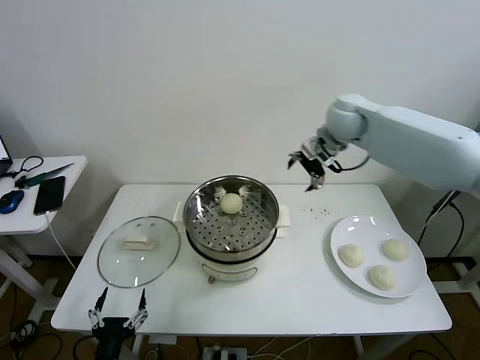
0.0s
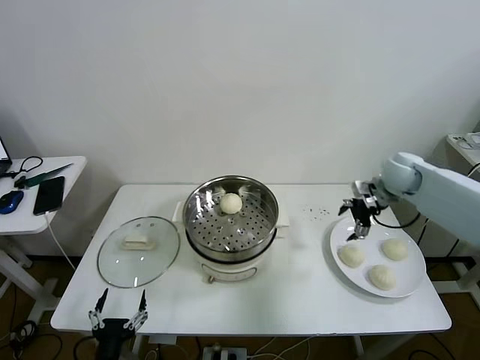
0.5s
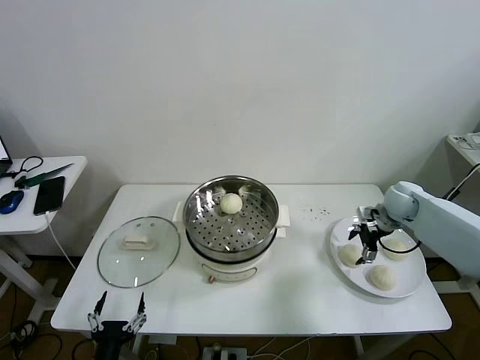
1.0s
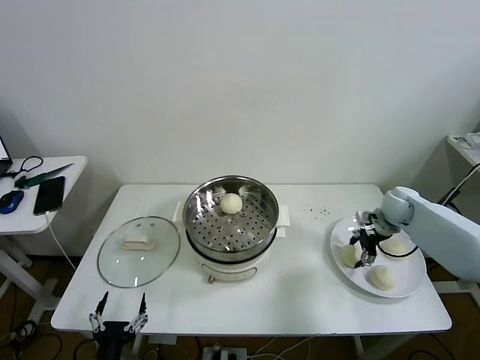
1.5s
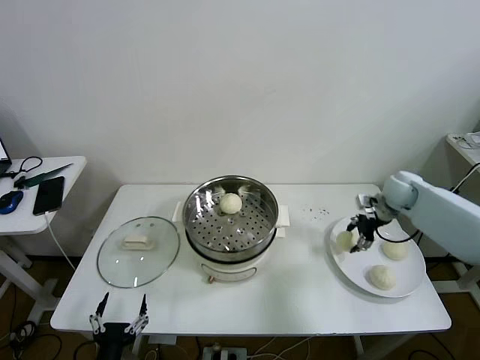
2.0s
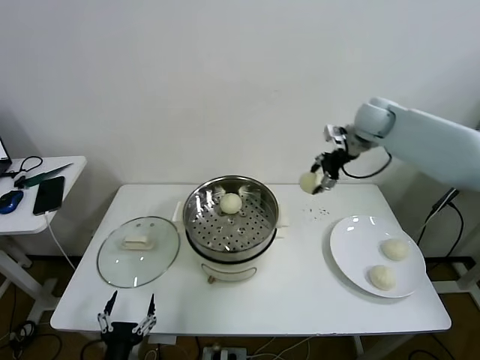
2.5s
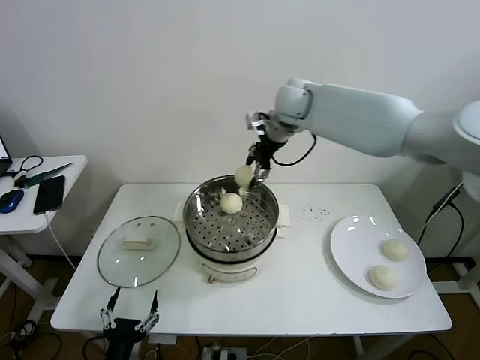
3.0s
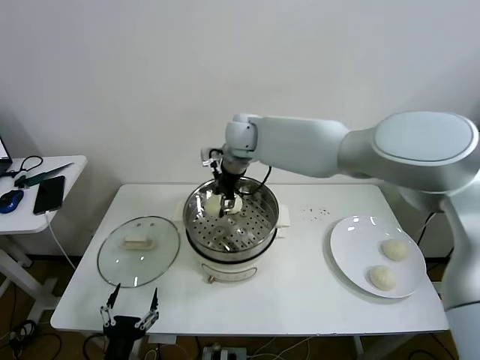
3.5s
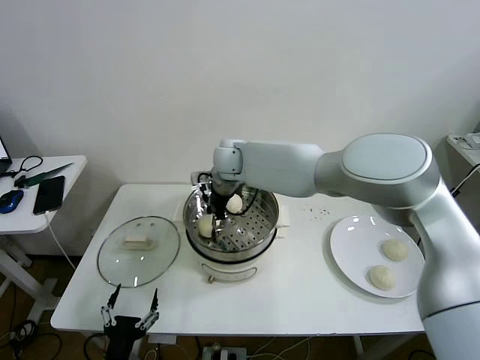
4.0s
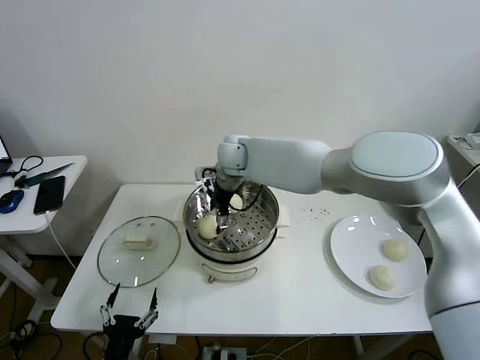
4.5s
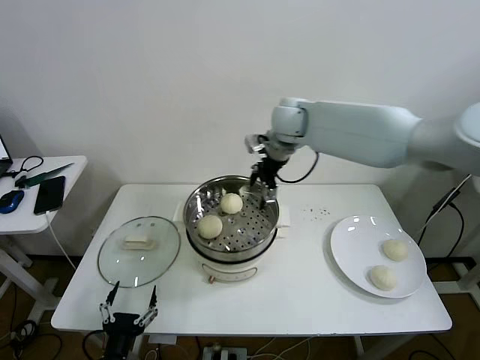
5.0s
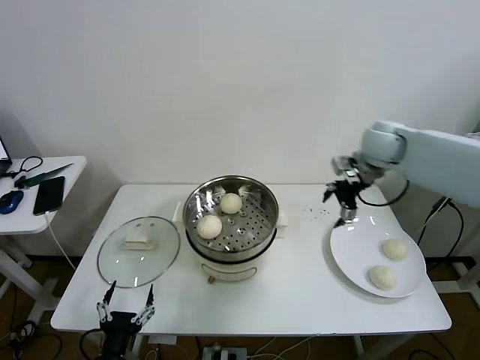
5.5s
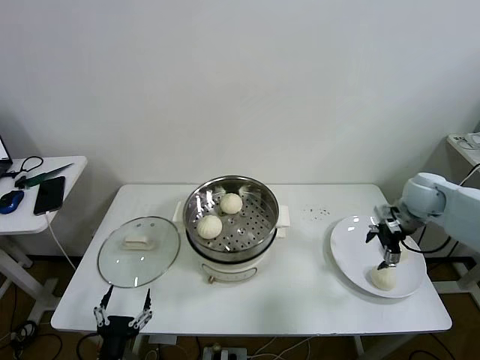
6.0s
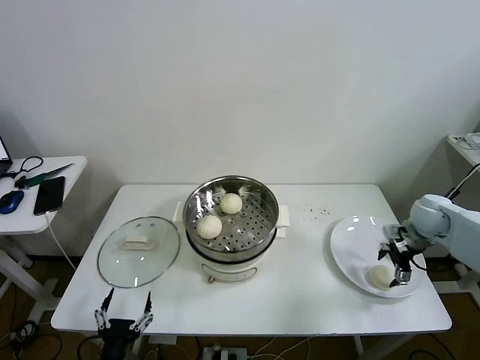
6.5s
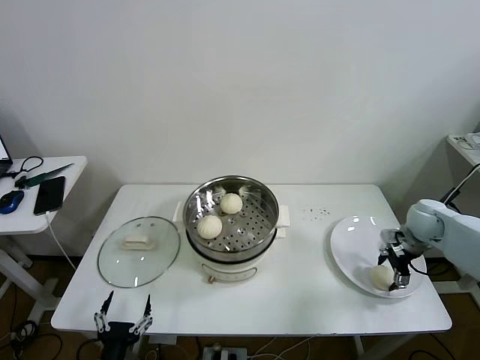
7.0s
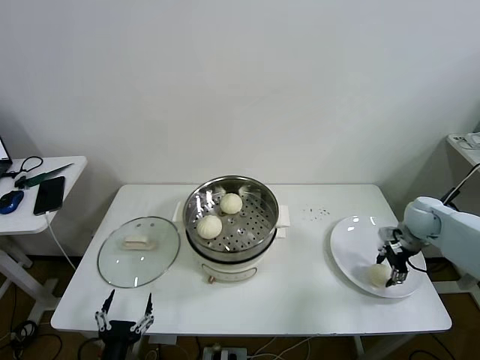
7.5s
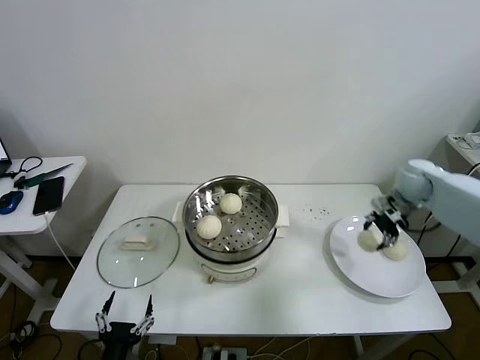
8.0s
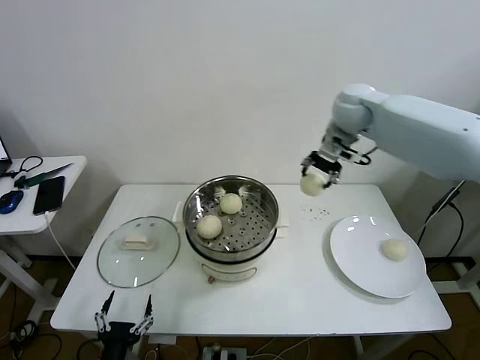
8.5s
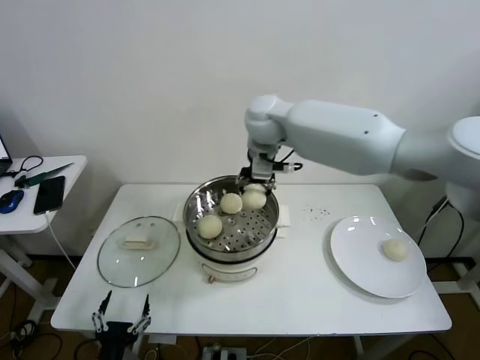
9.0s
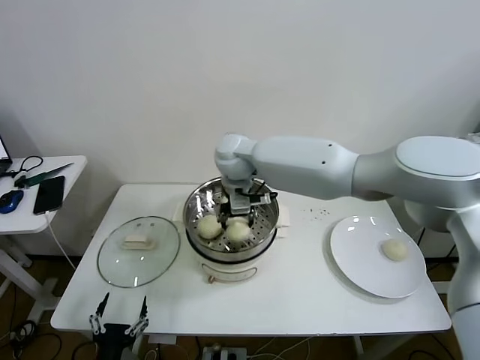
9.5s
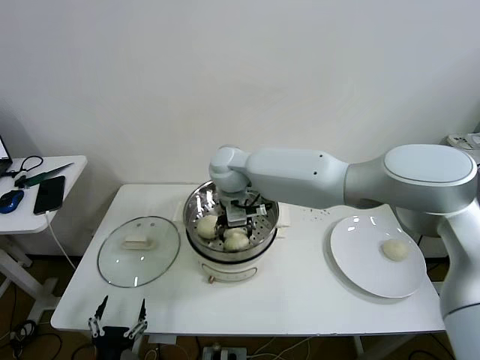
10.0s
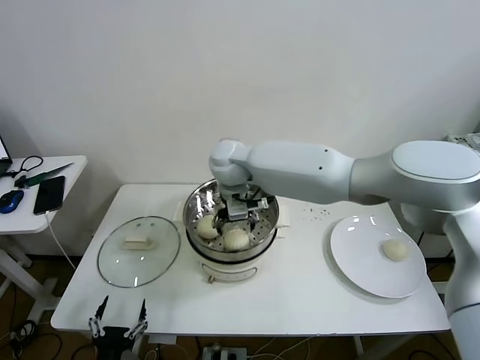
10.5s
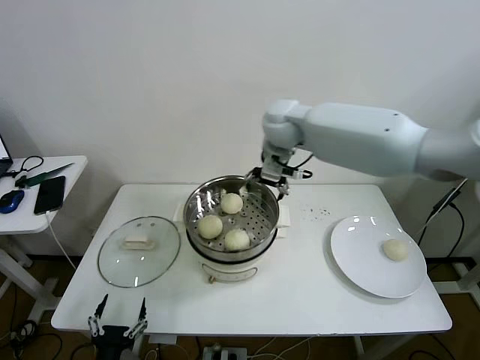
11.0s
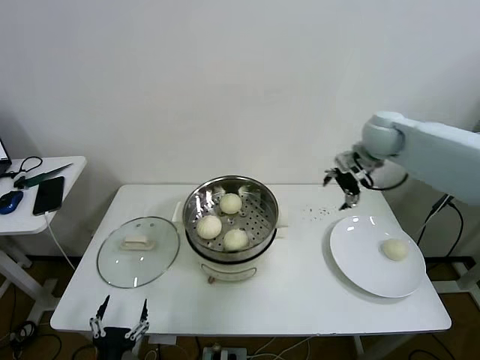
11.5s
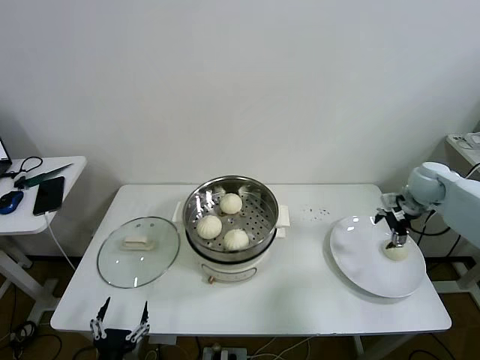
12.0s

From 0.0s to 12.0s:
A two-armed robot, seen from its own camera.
Task of the whole recording: take steamed baozi put them in steamer then cover it.
Step, from 0.0s to 1.5s: Grasp the baozi in the plate with right gripper.
Step, from 2.0s to 4.5s: Place the baozi on the steamer with right gripper.
Step, from 5.0s to 7.5s: Grasp the baozi in the plate with right gripper.
Step, from 8.0s to 10.5s: Place the baozi on the steamer with right gripper.
From 0.0s to 2.0s: The right gripper heads downward and to the right, covering roughly 20 cm, and closes up.
From 2.0s to 4.0s: The right gripper is displaced to the left by roughly 40 cm.
From 4.0s to 6.0s: The right gripper travels to the right by approximately 50 cm, and opens.
From 6.0s to 8.0s: The right gripper moves forward, roughly 5 cm, and closes up.
From 8.0s to 10.0s: The right gripper is displaced to the left by some 40 cm, and opens.
From 10.0s to 12.0s: The right gripper goes roughly 50 cm to the right, and opens.

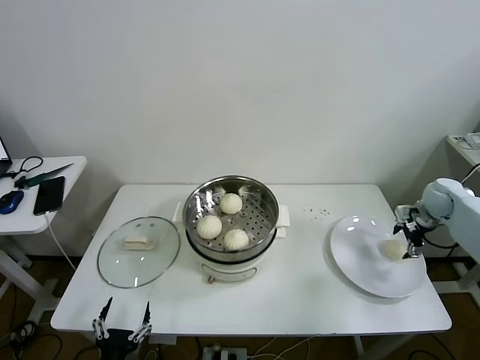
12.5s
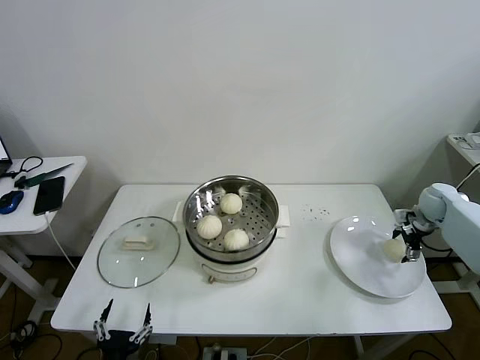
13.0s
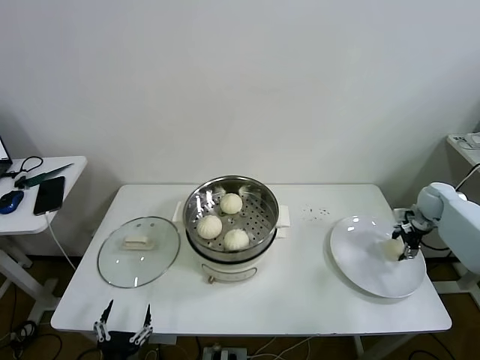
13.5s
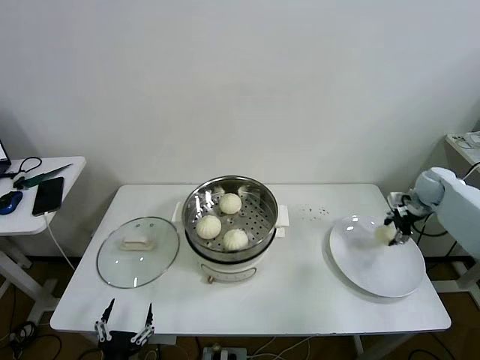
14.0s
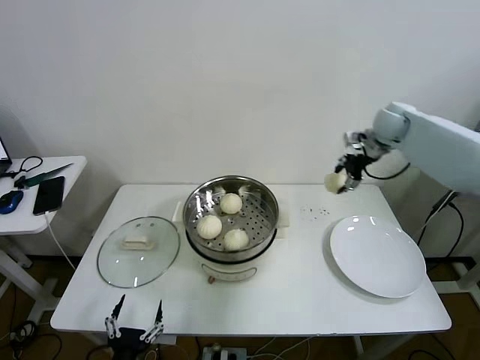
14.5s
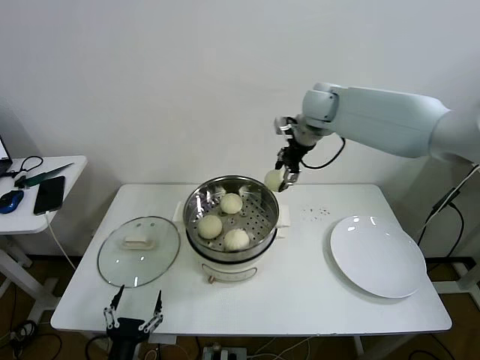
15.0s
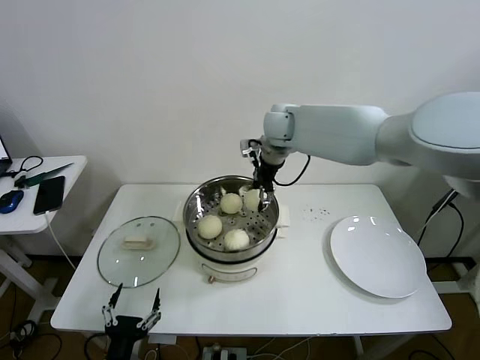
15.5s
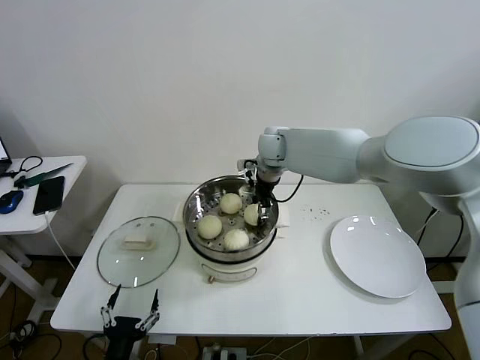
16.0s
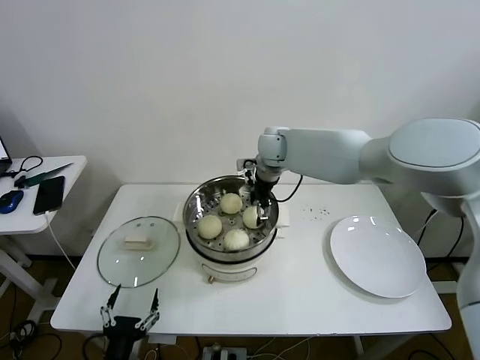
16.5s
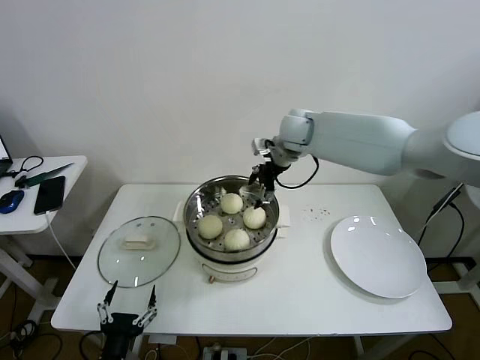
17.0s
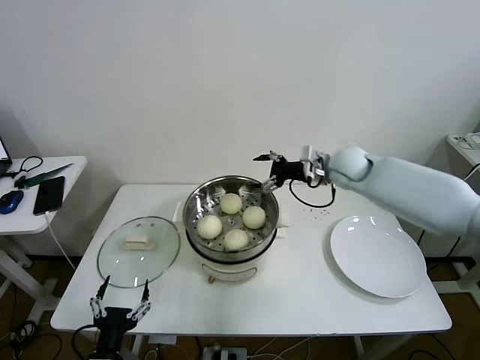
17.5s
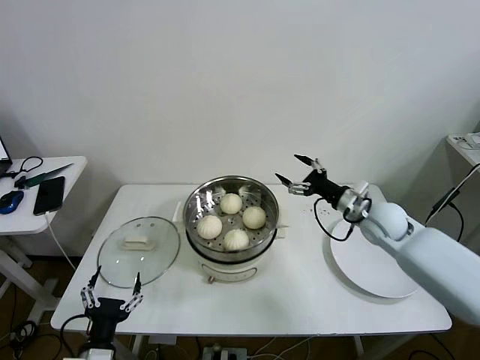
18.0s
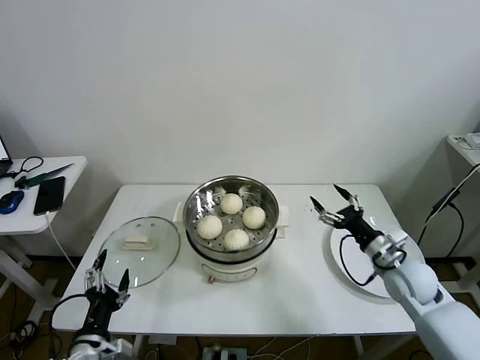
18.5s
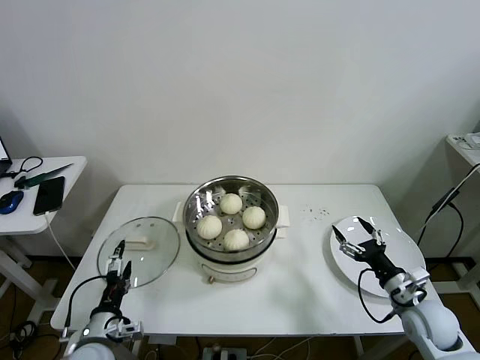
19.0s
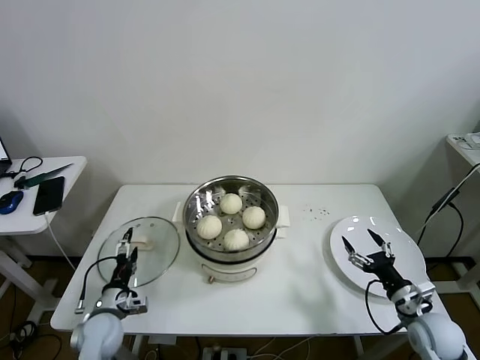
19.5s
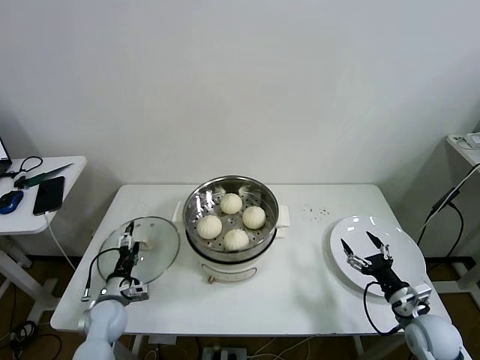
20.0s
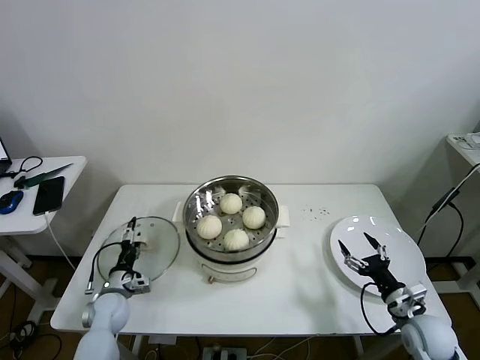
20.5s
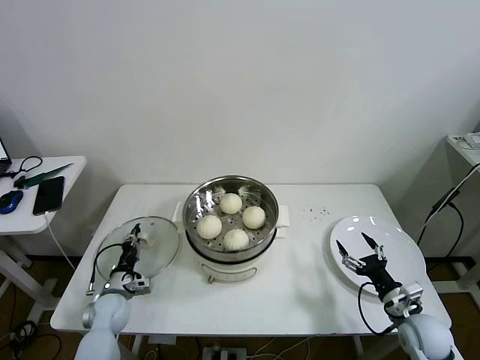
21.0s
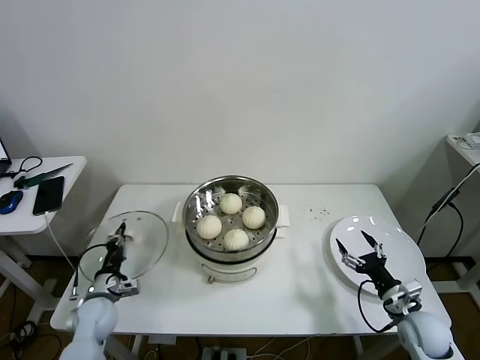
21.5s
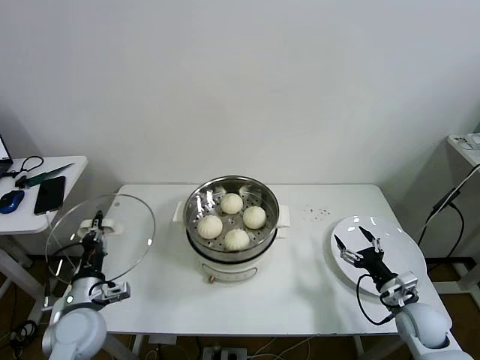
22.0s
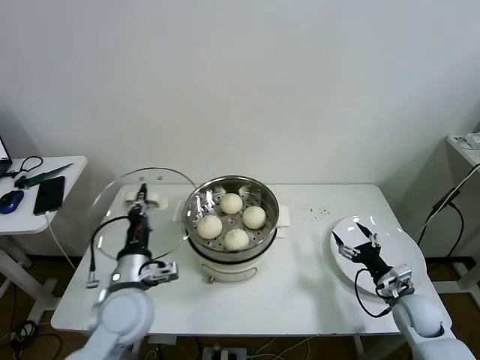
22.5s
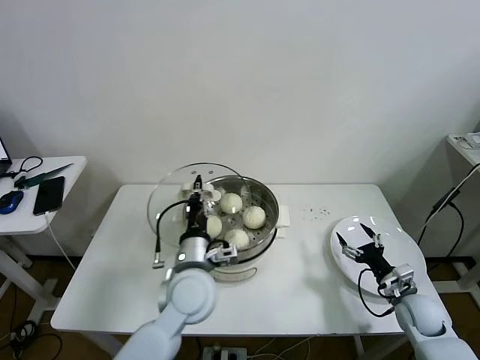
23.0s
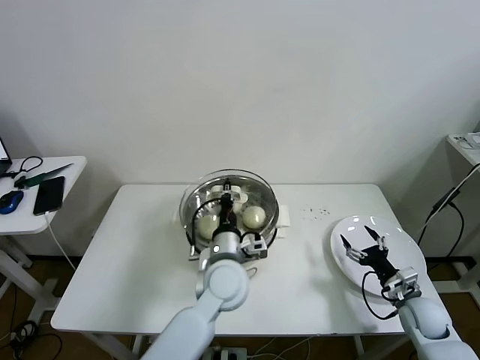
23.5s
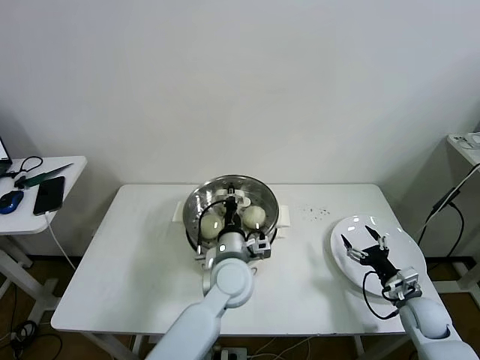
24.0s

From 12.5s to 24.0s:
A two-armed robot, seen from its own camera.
Task of the whole recording: take steamed baozi put them in steamer then cover it.
Step, from 14.0s to 16.0s: Place the baozi on the steamer with right gripper.
Step, from 17.0s to 21.0s: Grasp the pot lid with left gripper.
From 12.5s to 14.5s: The right gripper moves upward, to the left and forward, about 25 cm, and closes up.
From 14.5s to 16.5s: The right gripper moves to the left, some 25 cm, and opens up.
From 16.5s to 18.5s: The left gripper changes place by about 5 cm; the right gripper travels to the right, backward and downward by some 40 cm.
From 18.5s to 20.0s: The right gripper travels backward and downward by roughly 10 cm, while the left gripper moves forward and downward, some 20 cm.
From 20.0s to 22.0s: The left gripper moves upward and backward, about 10 cm, and closes up.
From 22.0s to 24.0s: The left gripper heads to the right, covering approximately 30 cm.

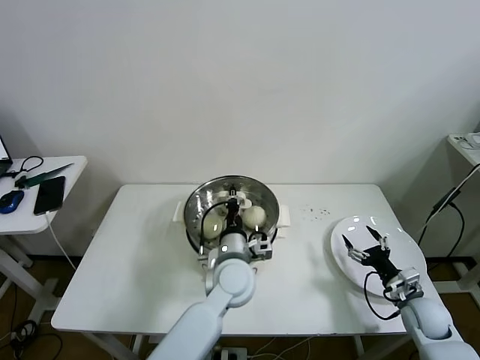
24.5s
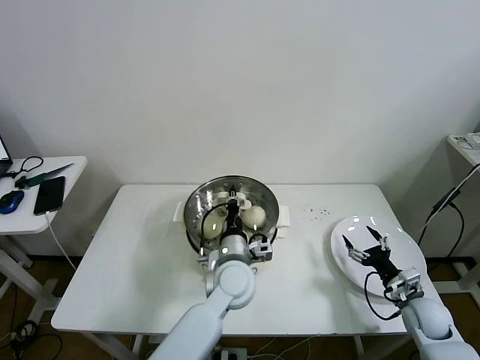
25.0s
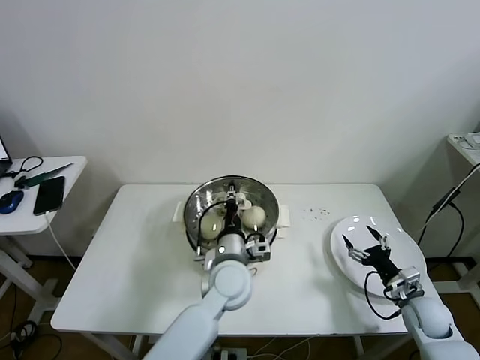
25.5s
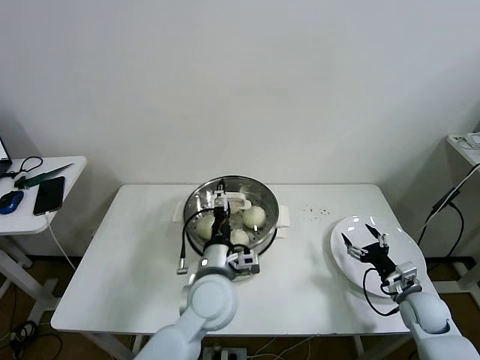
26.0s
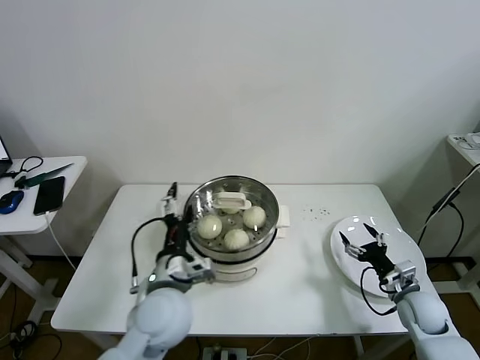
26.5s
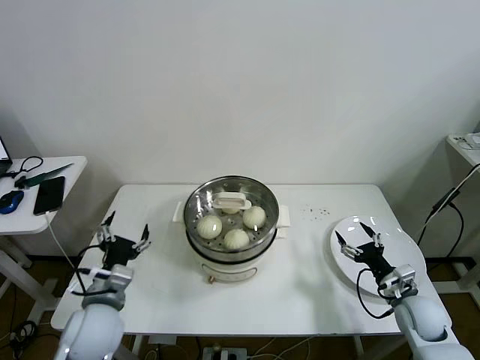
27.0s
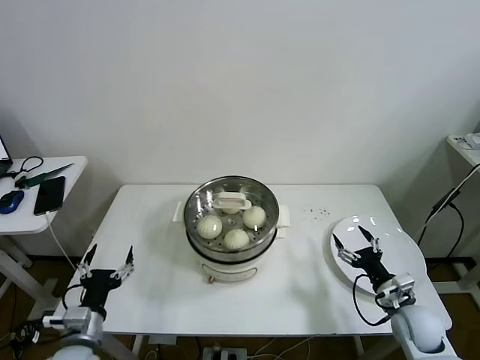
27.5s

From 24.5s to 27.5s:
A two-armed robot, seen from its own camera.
Task of the whole recording: take steamed baozi put them in steamer then cover it.
From 24.5s to 26.0s: The left gripper ends up approximately 5 cm from where it was, and opens its fingers.
From 26.0s to 27.5s: The left gripper travels to the left by some 25 cm. Meanwhile the right gripper moves about 5 cm.
